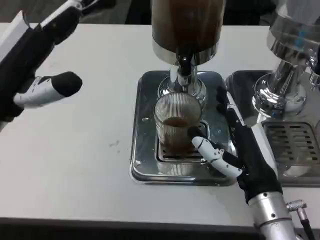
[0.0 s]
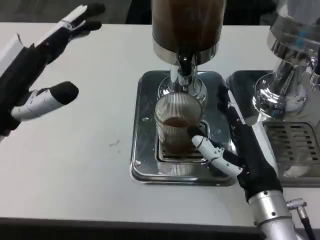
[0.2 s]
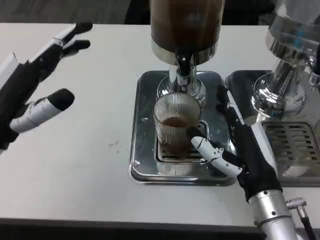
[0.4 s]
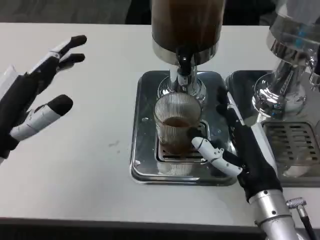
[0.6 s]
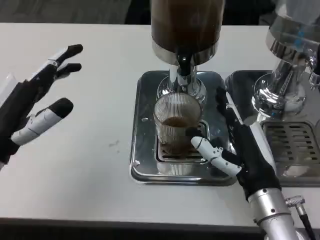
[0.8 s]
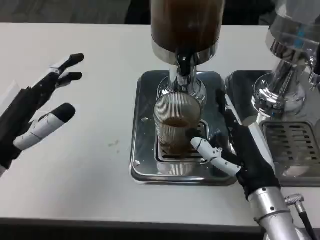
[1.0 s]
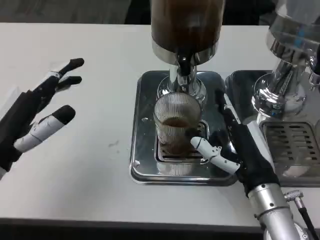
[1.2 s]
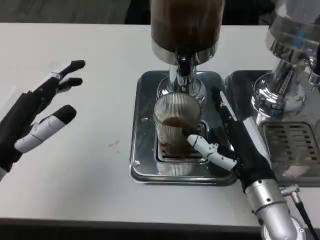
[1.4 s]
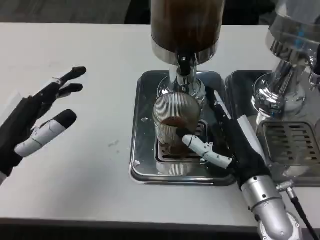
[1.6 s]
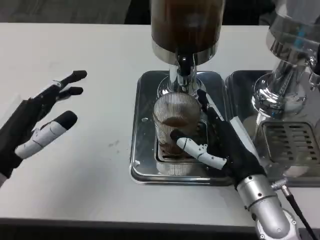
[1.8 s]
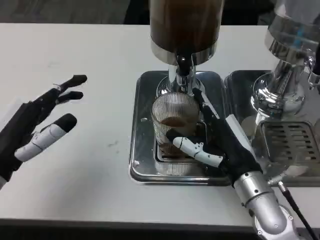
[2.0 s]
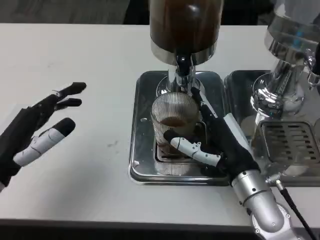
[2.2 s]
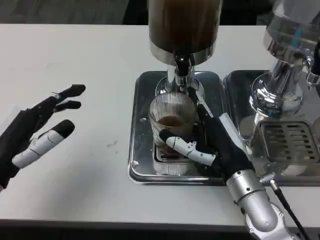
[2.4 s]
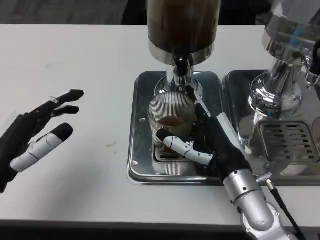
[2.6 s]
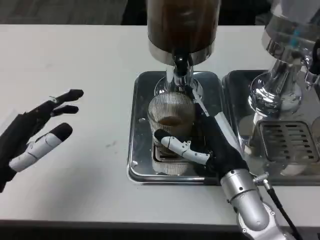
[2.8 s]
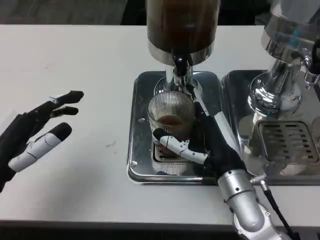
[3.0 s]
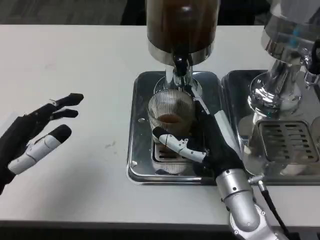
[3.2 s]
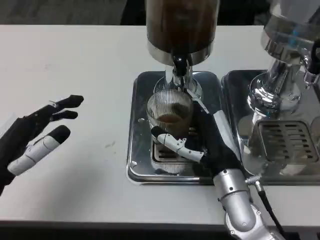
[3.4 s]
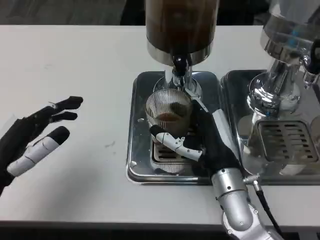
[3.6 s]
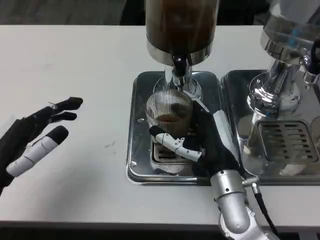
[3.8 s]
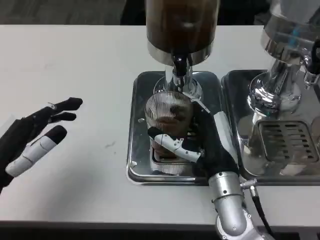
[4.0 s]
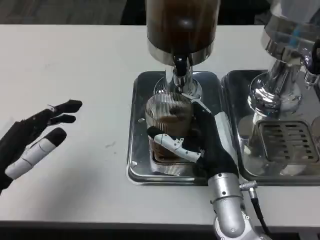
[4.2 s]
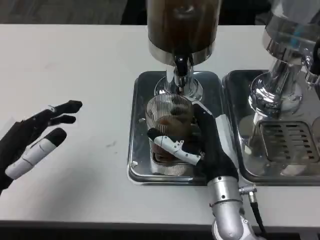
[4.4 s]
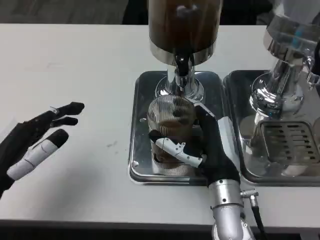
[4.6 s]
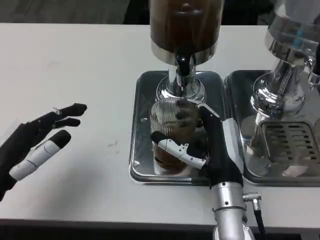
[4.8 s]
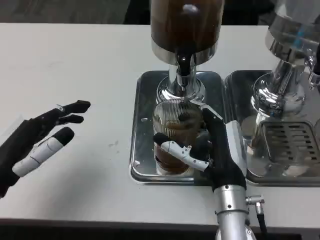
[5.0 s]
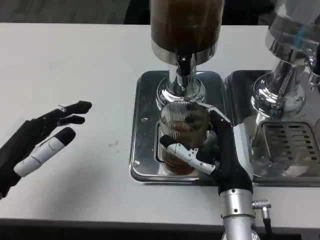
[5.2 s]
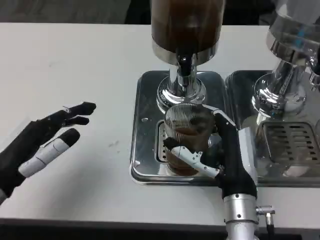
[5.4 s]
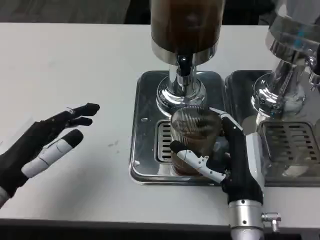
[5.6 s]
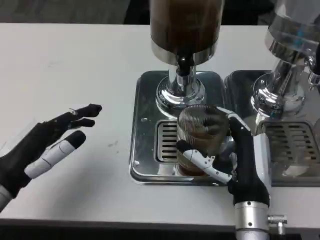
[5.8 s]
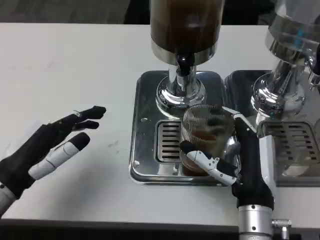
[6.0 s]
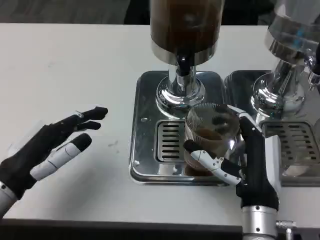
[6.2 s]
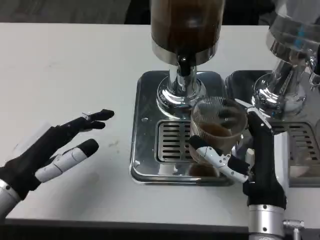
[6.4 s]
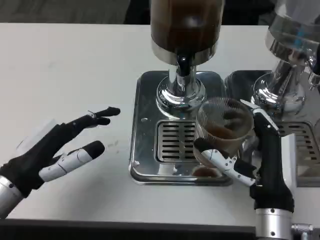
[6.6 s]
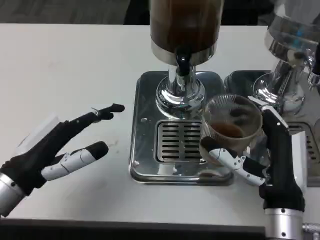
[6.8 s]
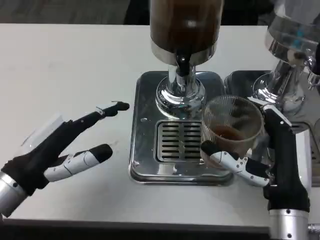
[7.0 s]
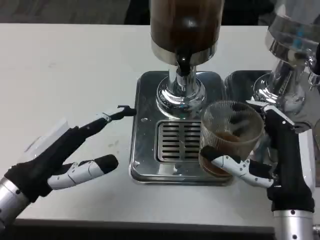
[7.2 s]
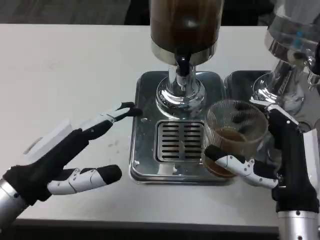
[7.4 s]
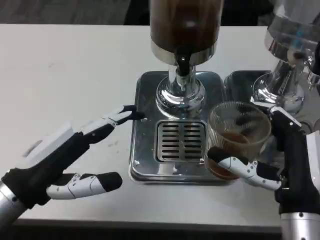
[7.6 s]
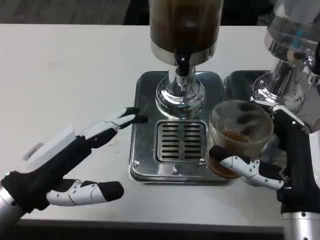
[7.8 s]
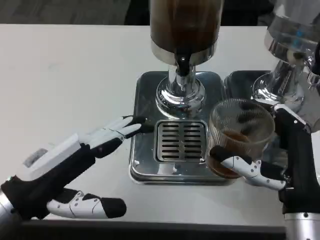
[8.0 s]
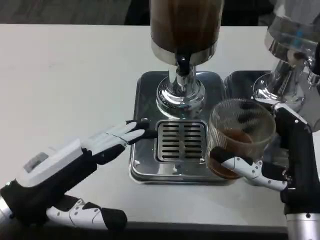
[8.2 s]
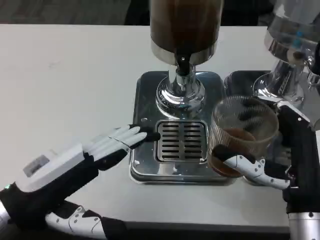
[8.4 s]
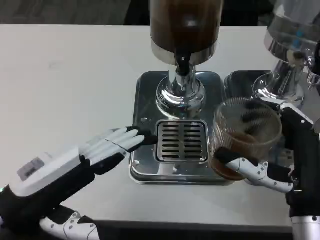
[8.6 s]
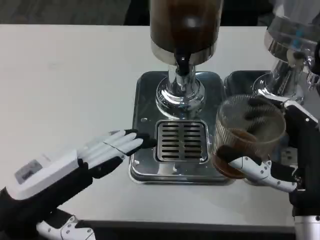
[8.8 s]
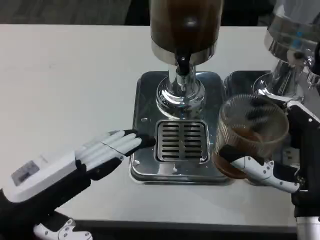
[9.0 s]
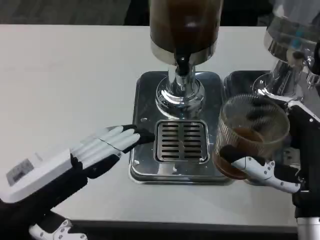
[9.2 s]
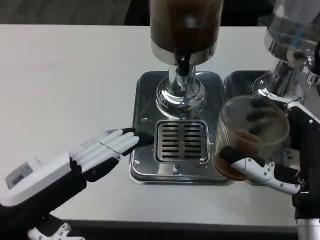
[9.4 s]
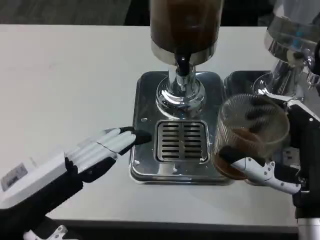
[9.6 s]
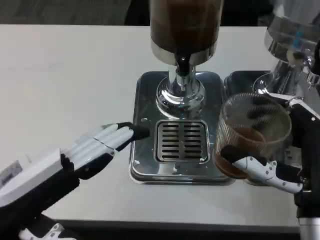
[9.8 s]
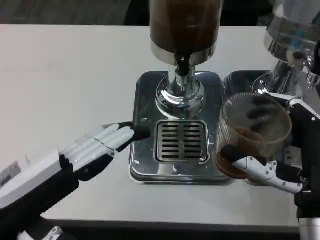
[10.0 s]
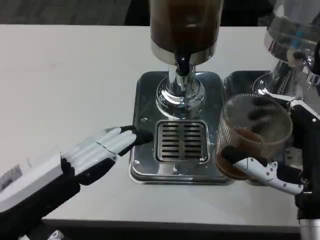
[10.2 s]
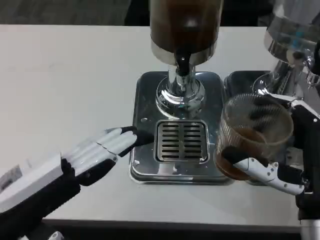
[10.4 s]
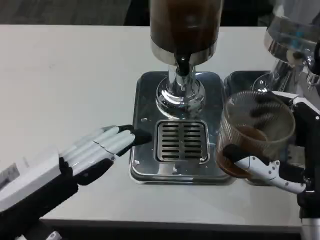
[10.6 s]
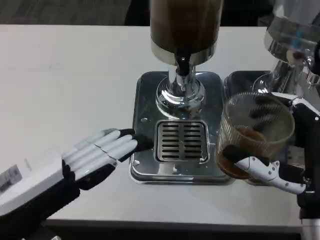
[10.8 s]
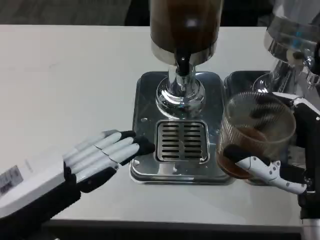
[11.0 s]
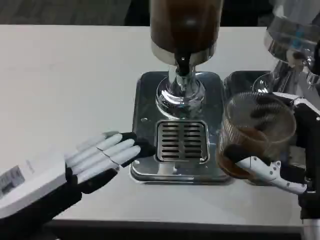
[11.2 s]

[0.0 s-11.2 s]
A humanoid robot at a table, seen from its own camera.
Task of the whole recording: Grasp the cup under the faucet to collect the drink, then remove the cup.
0.0 to 1.6 s: The left hand shifts roughly 10 cm downward.
4.8 to 6.4 s: The right hand ends up roughly 5 cm from where it was.
6.4 to 8.0 s: The left hand shifts by approximately 5 cm, while the right hand shifts by roughly 5 cm.
8.0 to 11.2 s: The hands make only small movements.

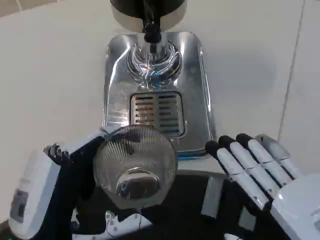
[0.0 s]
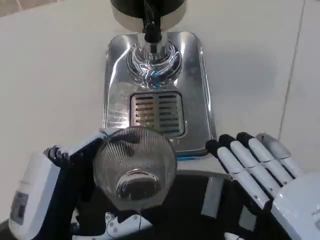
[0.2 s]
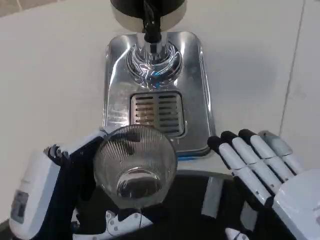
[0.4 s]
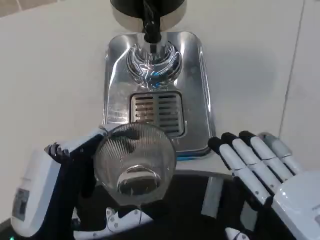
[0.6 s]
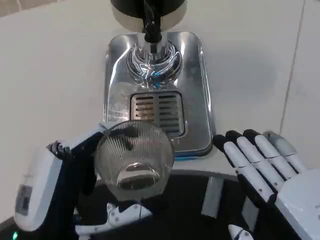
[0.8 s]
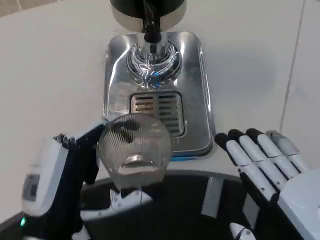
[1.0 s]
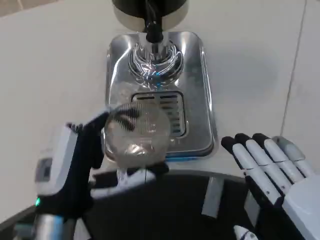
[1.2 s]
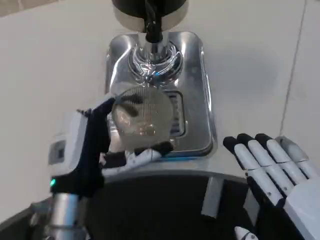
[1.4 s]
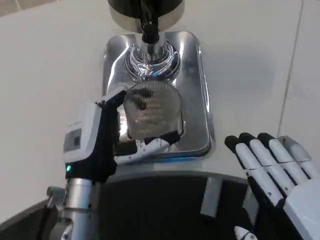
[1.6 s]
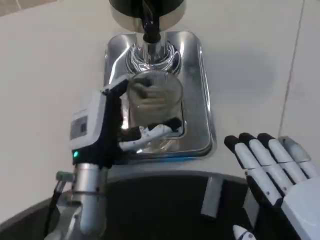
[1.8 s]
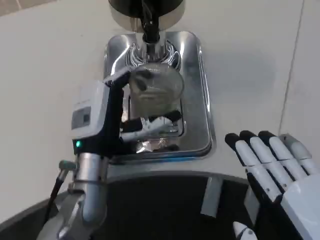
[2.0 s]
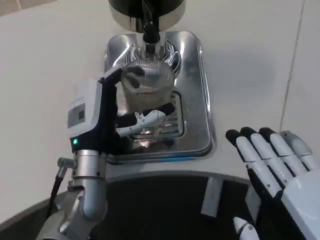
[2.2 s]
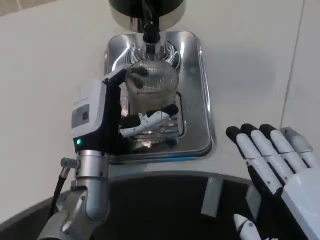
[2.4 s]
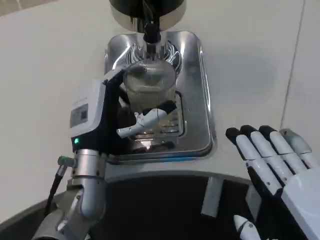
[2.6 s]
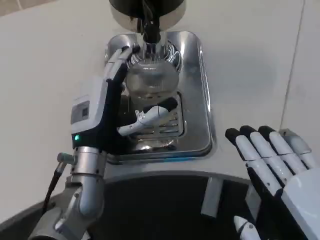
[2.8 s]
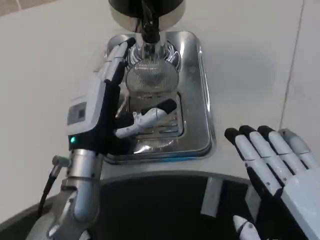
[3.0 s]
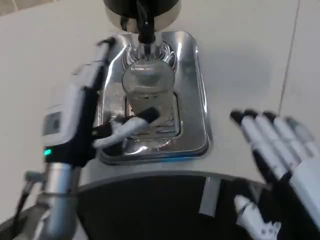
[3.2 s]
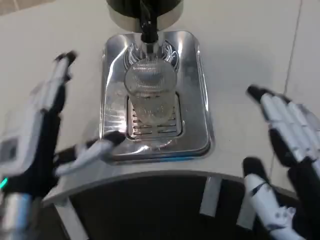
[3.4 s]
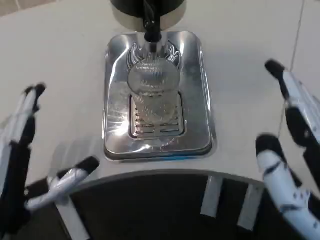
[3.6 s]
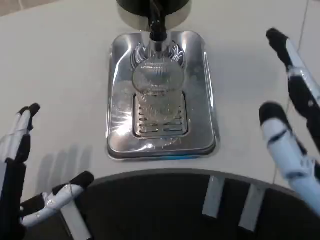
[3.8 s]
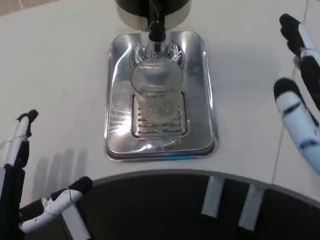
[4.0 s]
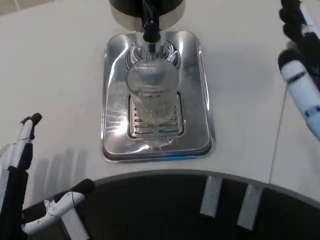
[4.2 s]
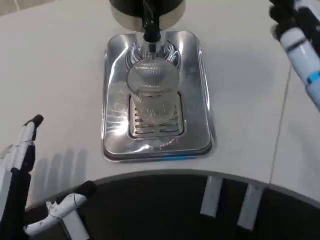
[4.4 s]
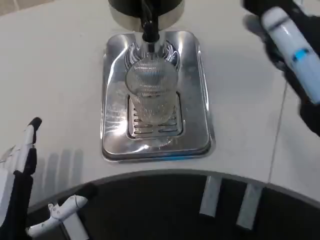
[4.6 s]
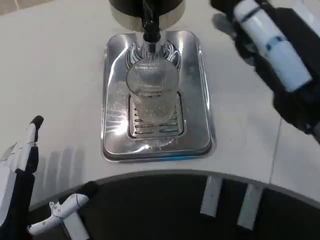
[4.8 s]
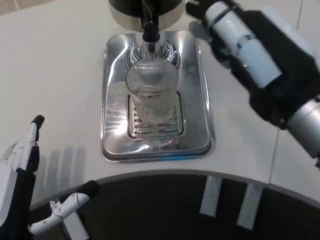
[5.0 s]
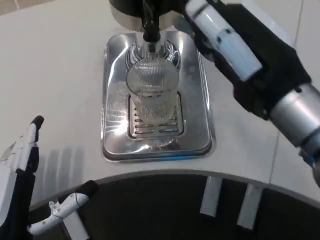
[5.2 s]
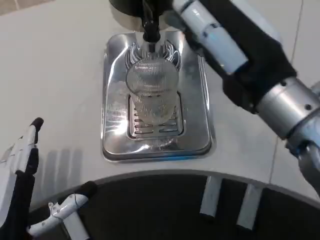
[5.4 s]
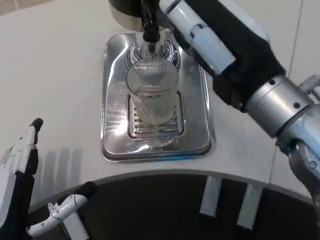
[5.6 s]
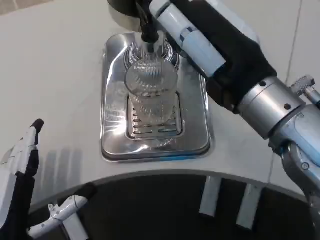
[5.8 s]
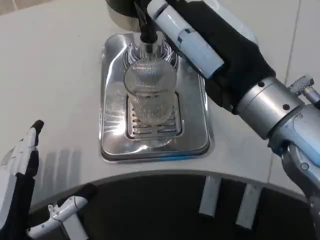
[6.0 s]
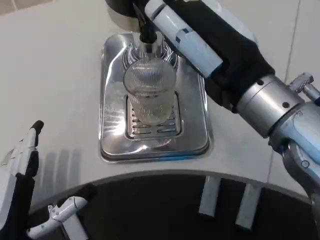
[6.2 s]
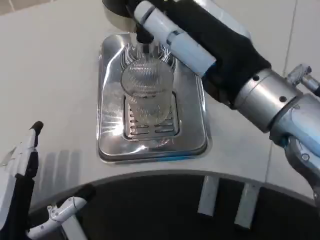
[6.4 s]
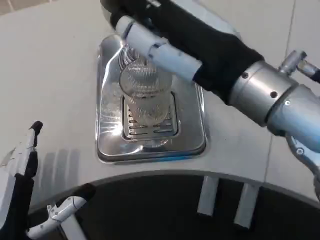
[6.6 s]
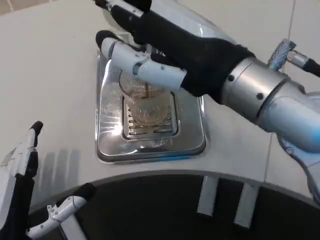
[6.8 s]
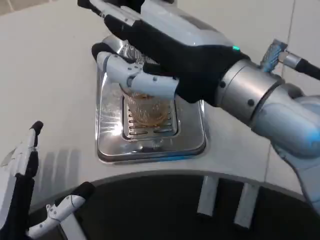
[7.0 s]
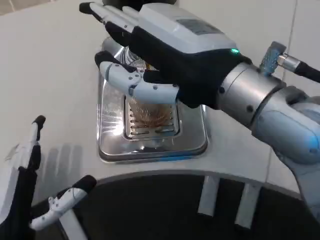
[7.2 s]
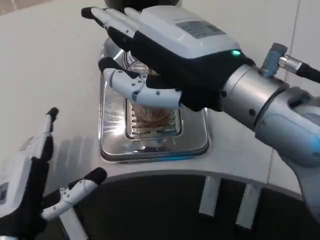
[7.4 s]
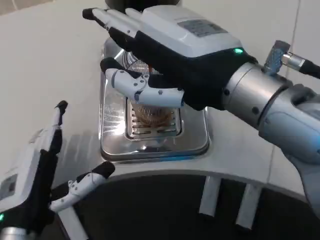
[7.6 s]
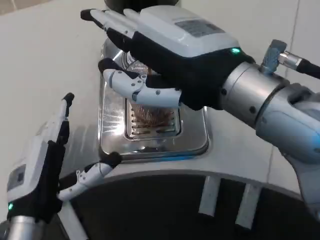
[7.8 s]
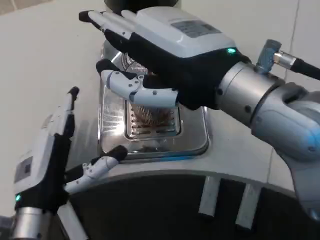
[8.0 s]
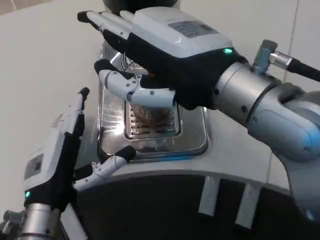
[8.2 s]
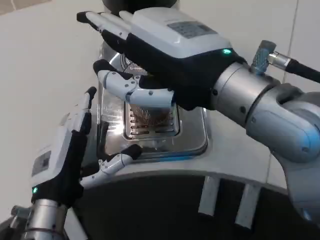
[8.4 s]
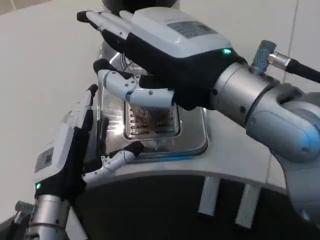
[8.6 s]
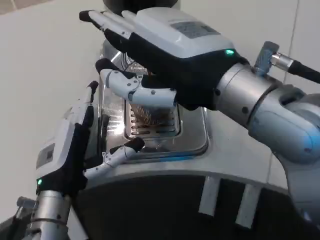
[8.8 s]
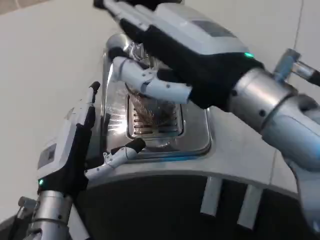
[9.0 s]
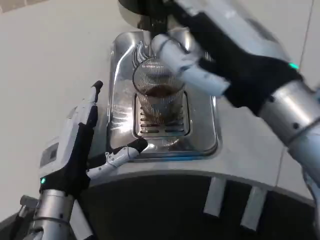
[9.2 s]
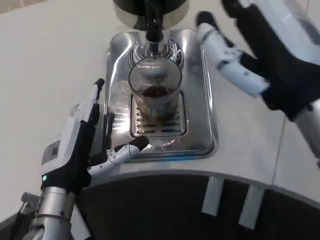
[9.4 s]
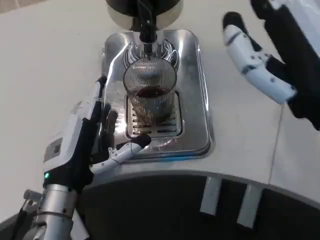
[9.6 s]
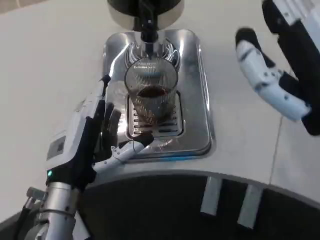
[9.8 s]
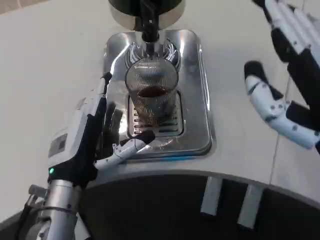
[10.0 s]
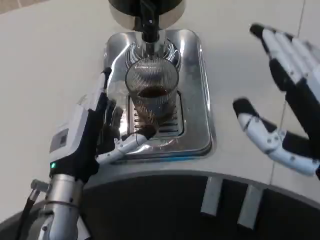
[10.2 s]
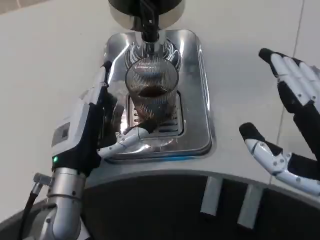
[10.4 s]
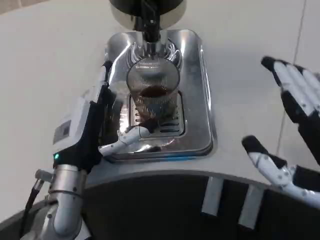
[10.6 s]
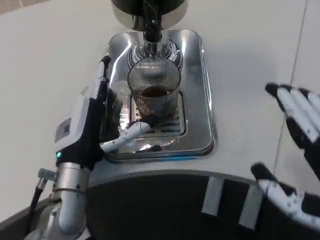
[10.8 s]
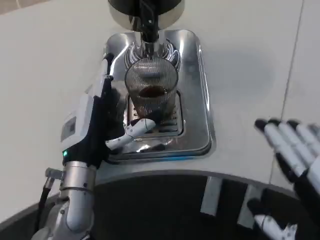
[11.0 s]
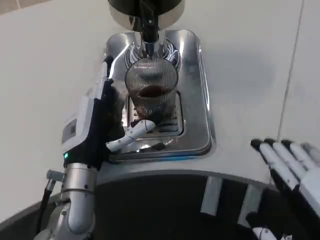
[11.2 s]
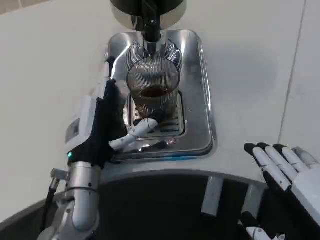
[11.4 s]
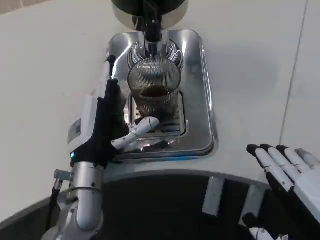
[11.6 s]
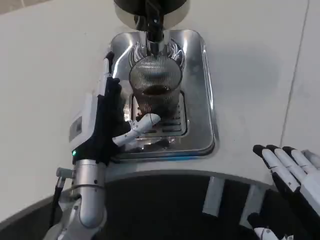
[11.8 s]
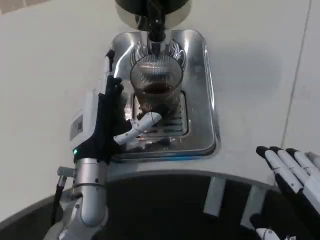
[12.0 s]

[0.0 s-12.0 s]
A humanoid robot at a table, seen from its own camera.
Task of the whole recording: Grasp the cup under the faucet to collect the drink, then remove the cup.
0.0 to 1.6 s: The left hand heads forward, covering about 15 cm.
1.6 to 3.0 s: The hands make only small movements.
3.0 to 4.4 s: The left hand shifts roughly 15 cm backward and to the left. Meanwhile the right hand moves forward and upward, some 10 cm.
4.4 to 6.0 s: The right hand travels to the left and forward by roughly 10 cm.
7.6 to 9.0 s: The left hand is displaced forward by roughly 5 cm.
9.0 to 10.4 s: The right hand heads backward, to the right and downward, covering some 15 cm.
10.4 to 12.0 s: The right hand shifts approximately 5 cm downward.
